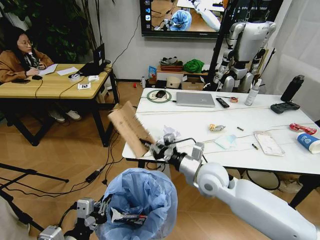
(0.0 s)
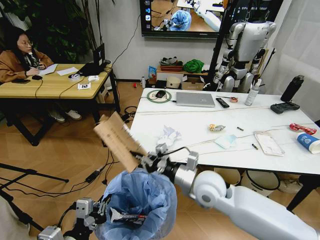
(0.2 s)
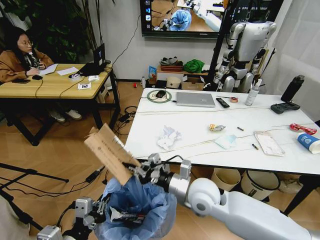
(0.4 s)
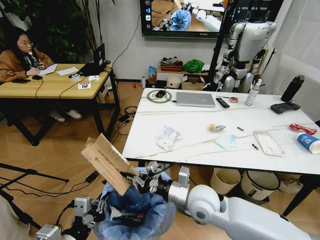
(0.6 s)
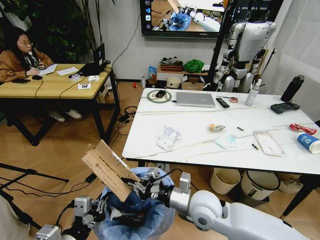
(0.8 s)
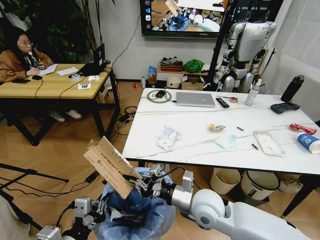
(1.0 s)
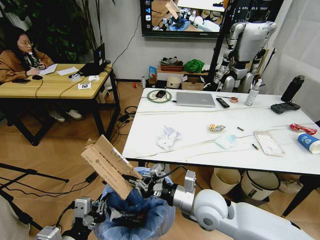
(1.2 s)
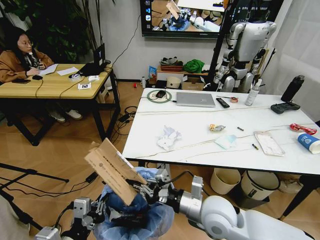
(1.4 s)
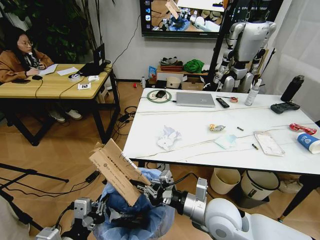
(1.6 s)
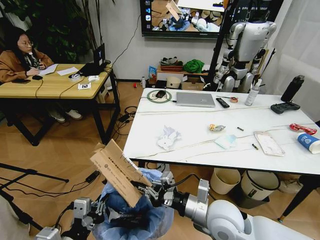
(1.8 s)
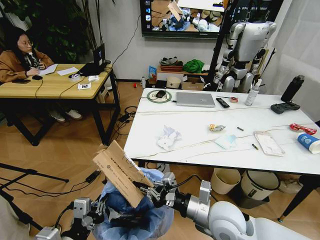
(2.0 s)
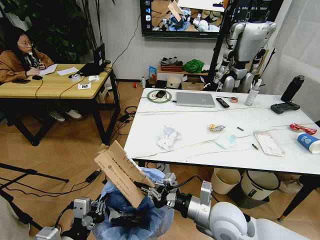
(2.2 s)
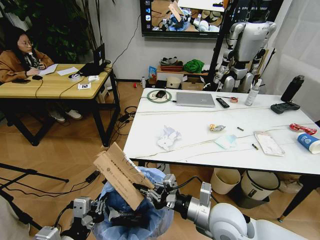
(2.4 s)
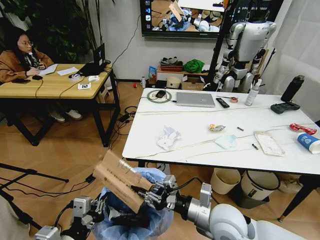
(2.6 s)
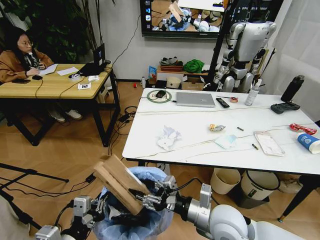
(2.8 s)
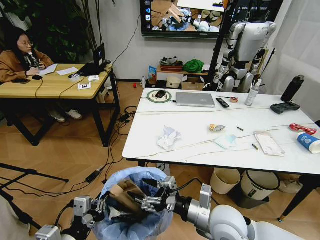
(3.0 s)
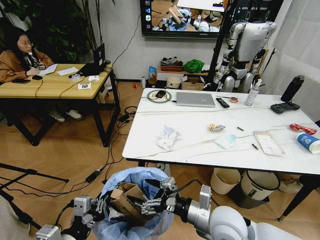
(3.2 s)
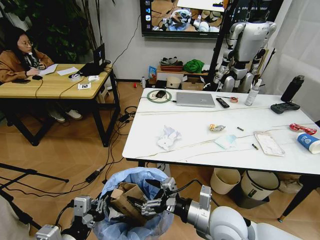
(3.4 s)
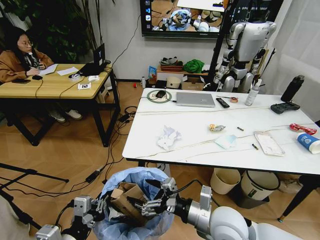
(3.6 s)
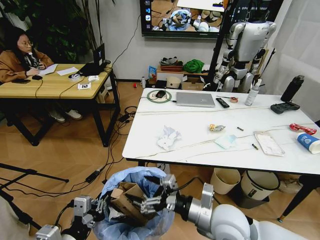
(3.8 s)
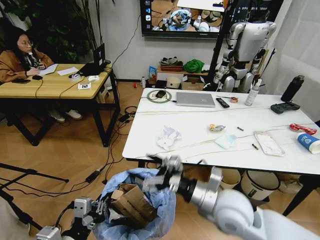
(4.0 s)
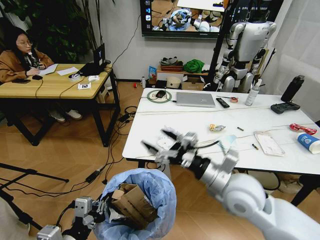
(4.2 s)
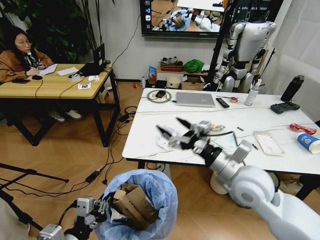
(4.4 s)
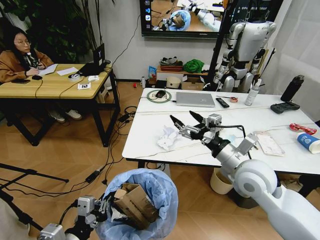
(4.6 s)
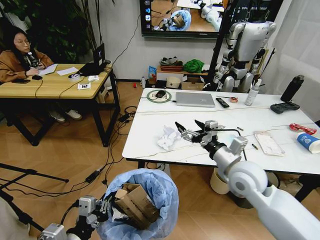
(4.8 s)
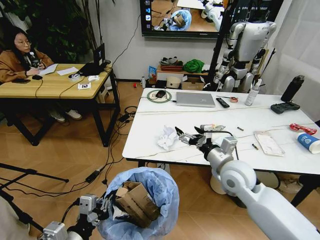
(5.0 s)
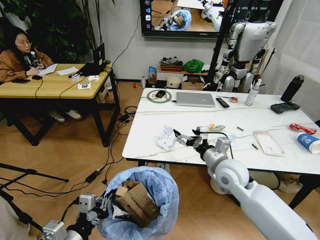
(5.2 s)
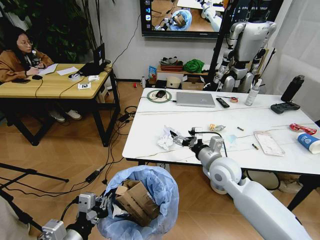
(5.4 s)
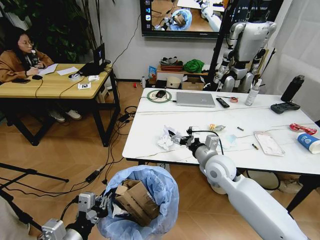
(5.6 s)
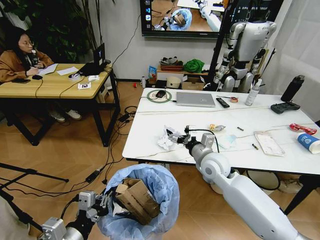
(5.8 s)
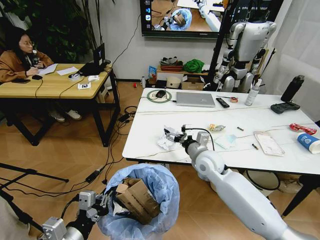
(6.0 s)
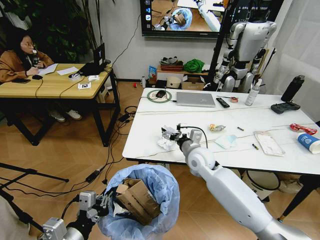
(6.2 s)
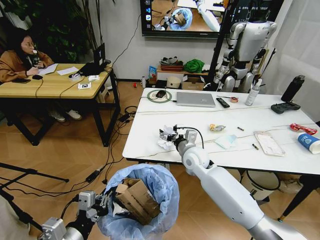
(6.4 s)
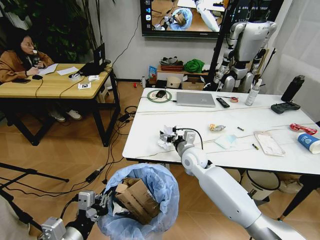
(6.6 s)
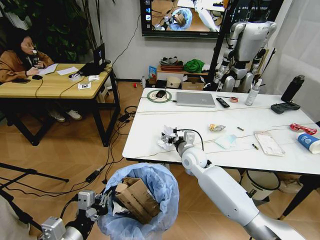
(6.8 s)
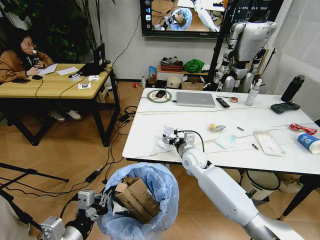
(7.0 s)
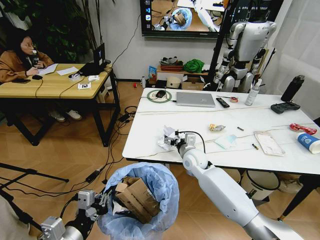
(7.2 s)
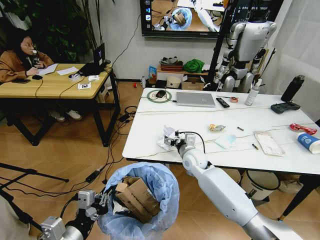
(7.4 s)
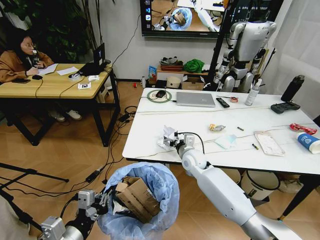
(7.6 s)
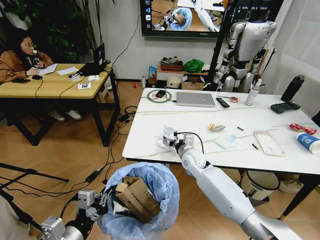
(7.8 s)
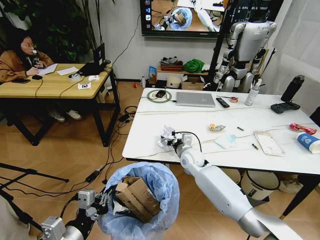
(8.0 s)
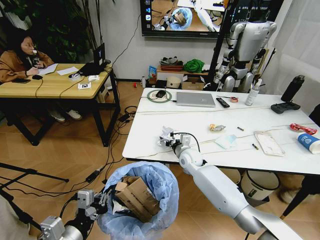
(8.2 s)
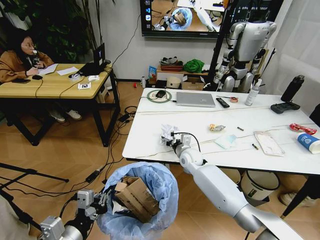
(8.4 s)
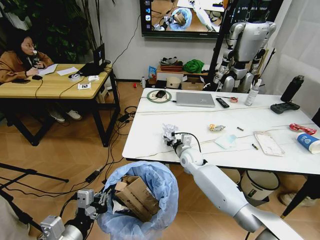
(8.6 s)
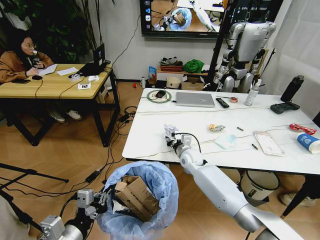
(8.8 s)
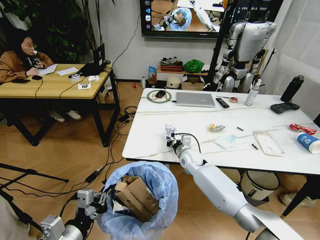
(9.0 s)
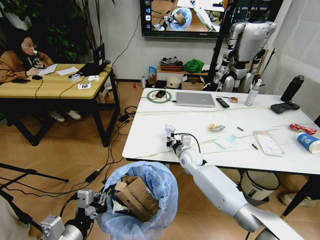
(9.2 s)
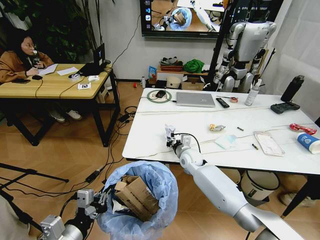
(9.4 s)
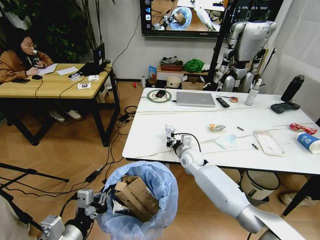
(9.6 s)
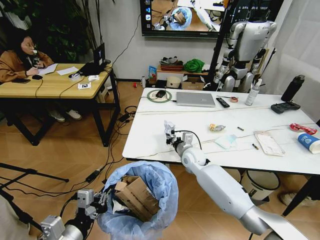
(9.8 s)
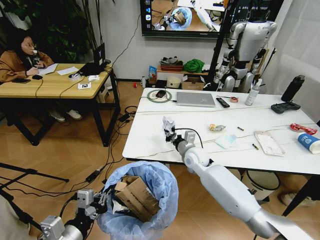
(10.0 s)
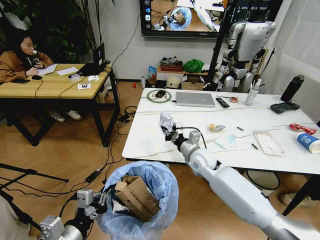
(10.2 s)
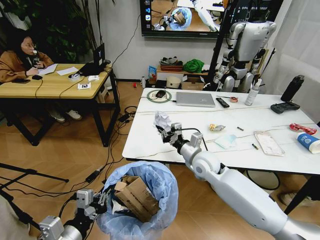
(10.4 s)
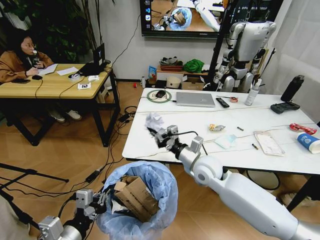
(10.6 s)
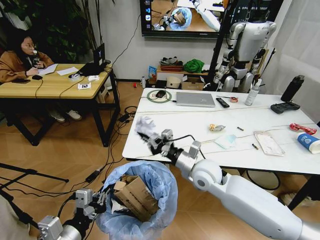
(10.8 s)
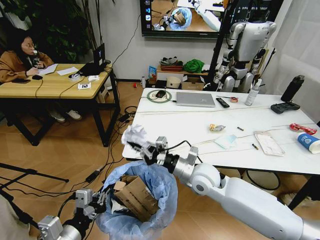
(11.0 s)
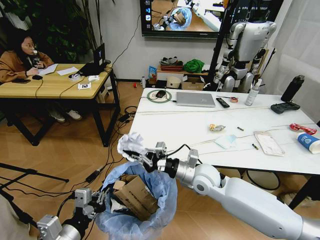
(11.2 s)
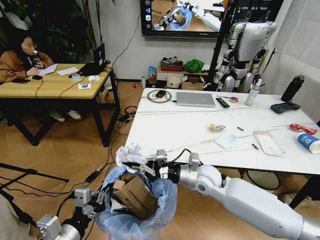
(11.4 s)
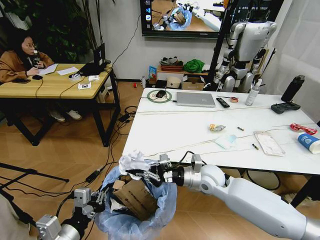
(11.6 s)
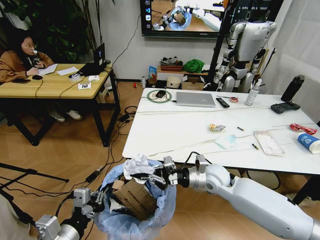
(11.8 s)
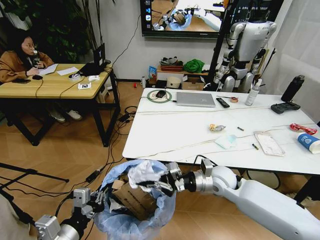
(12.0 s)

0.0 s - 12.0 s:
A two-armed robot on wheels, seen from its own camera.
Task of the whole recording: Pick up the trash bin and place the trash from the table into it.
0.0 s - 1.6 s: The right gripper is displaced backward by approximately 10 cm.
1.6 s - 3.0 s: The right gripper opens up.
3.0 s - 4.4 s: The right gripper heads upward, forward and to the right, covering roughly 15 cm.
4.4 s - 6.0 s: The right gripper travels forward, downward and to the left by about 15 cm.
6.0 s - 7.6 s: The right gripper moves downward, about 5 cm.
7.6 s - 9.0 s: The right gripper closes its fingers.
9.0 s - 10.4 s: The right gripper is displaced upward and backward by roughly 10 cm.
10.4 s - 12.0 s: The right gripper is displaced to the right by about 5 cm.

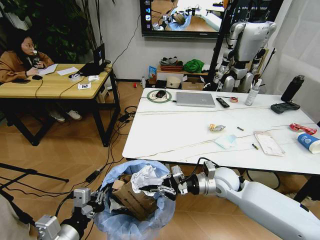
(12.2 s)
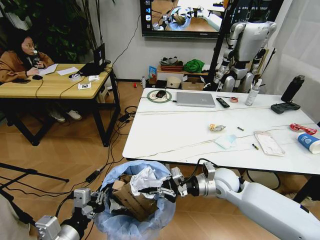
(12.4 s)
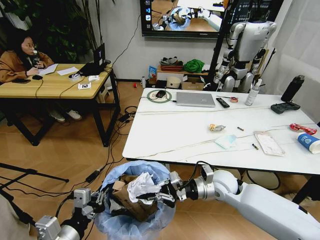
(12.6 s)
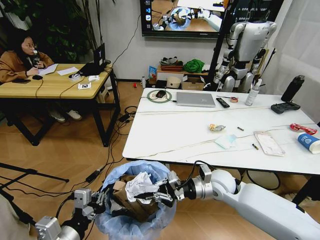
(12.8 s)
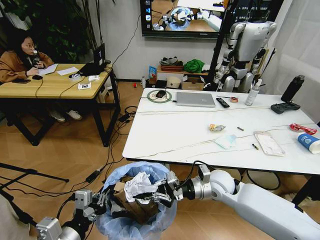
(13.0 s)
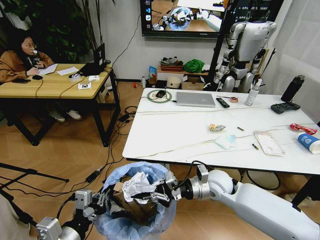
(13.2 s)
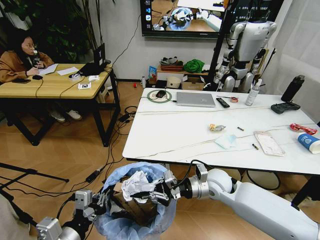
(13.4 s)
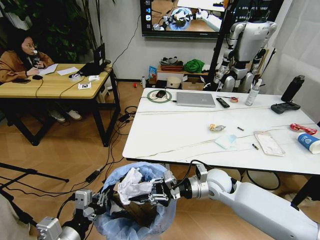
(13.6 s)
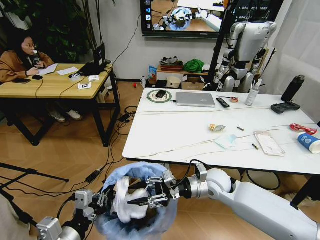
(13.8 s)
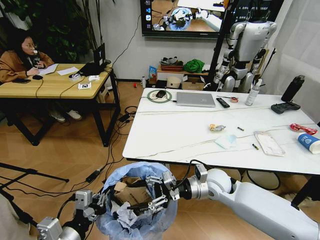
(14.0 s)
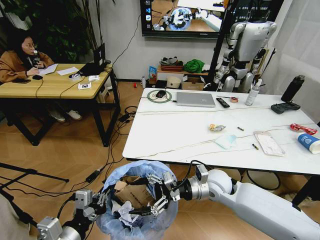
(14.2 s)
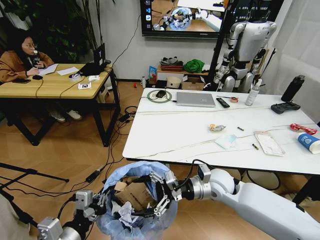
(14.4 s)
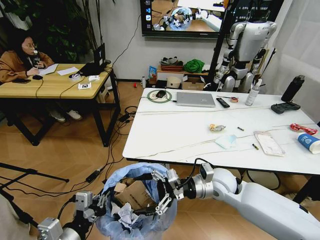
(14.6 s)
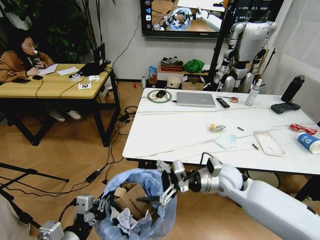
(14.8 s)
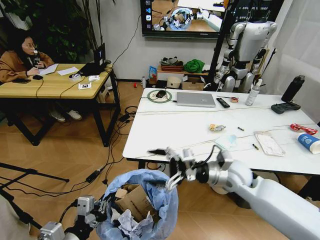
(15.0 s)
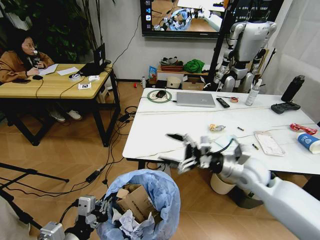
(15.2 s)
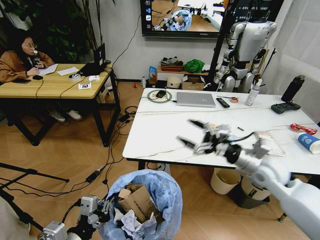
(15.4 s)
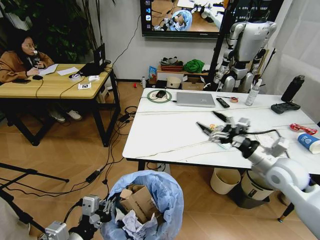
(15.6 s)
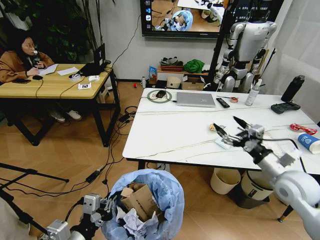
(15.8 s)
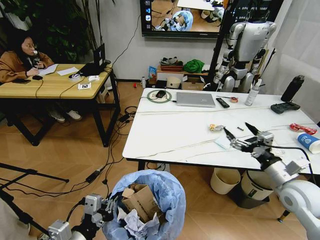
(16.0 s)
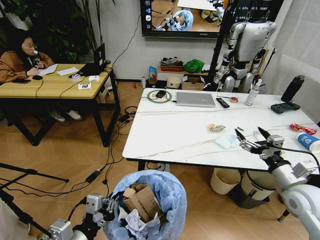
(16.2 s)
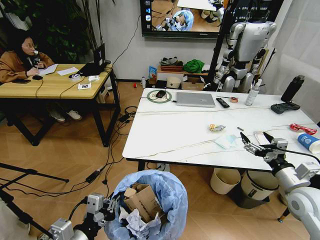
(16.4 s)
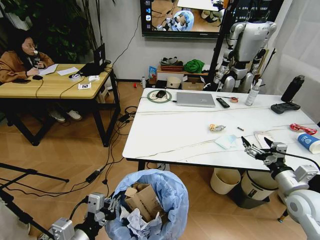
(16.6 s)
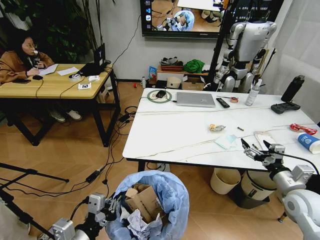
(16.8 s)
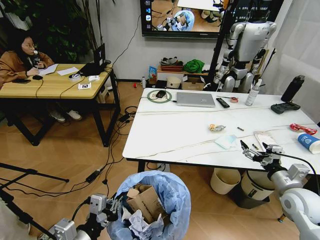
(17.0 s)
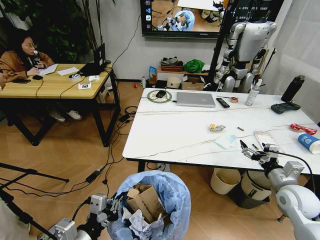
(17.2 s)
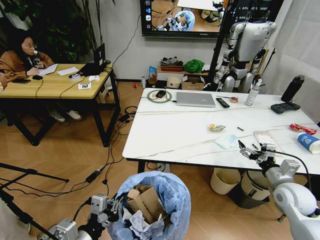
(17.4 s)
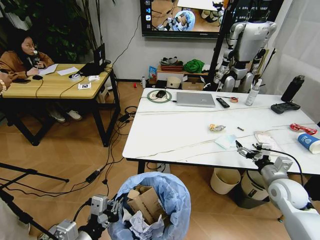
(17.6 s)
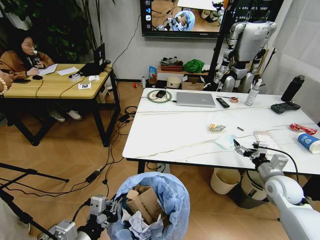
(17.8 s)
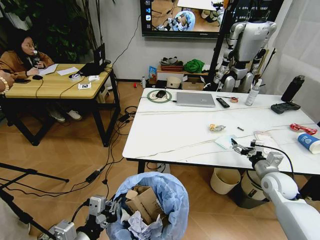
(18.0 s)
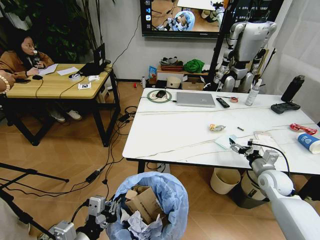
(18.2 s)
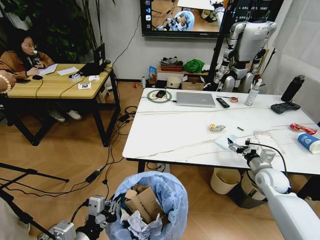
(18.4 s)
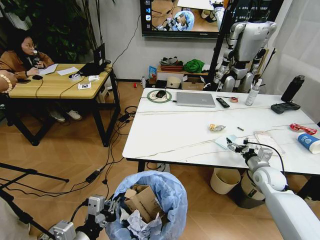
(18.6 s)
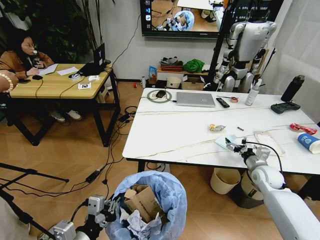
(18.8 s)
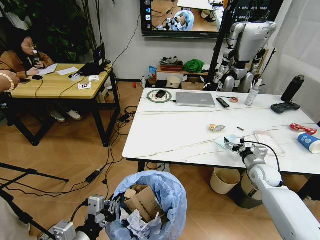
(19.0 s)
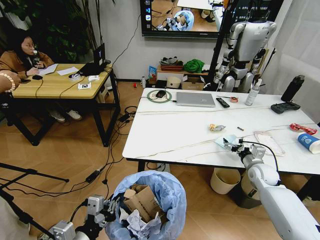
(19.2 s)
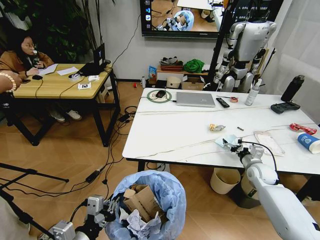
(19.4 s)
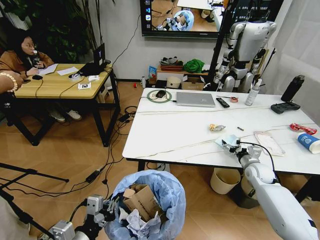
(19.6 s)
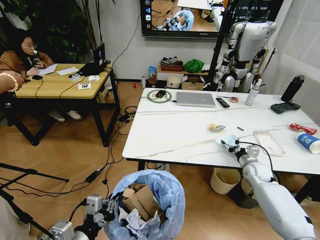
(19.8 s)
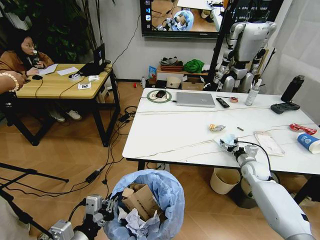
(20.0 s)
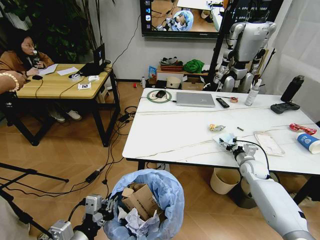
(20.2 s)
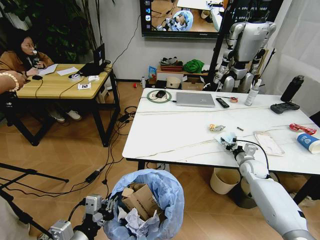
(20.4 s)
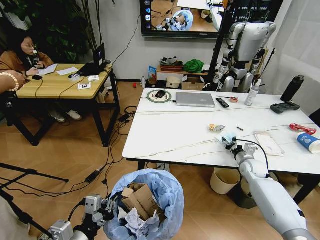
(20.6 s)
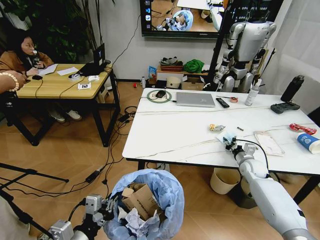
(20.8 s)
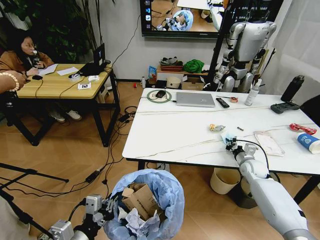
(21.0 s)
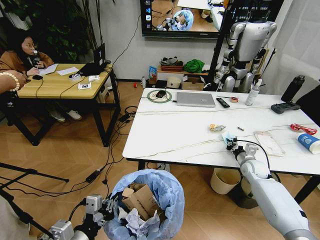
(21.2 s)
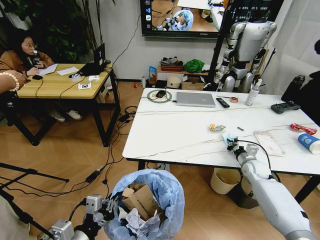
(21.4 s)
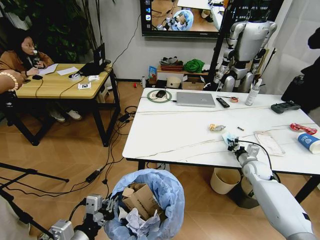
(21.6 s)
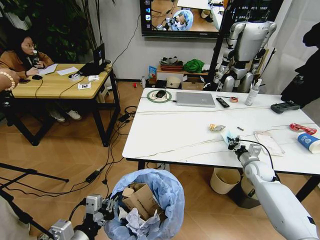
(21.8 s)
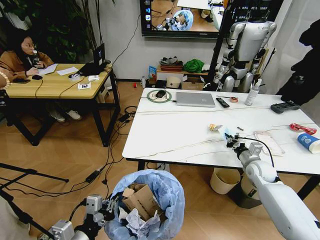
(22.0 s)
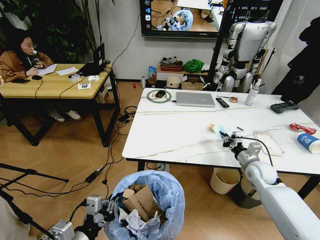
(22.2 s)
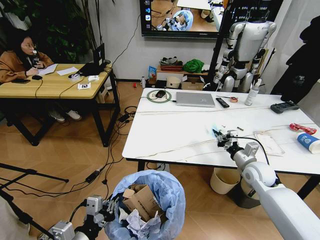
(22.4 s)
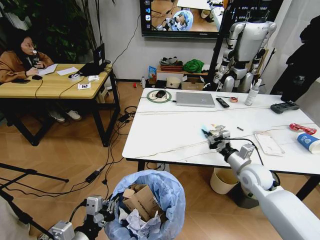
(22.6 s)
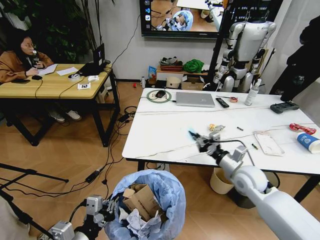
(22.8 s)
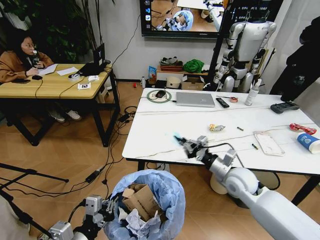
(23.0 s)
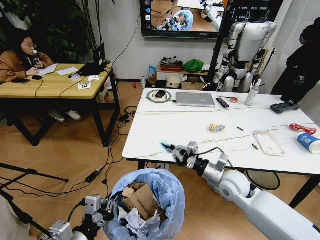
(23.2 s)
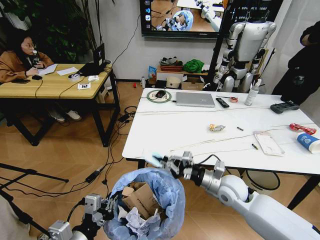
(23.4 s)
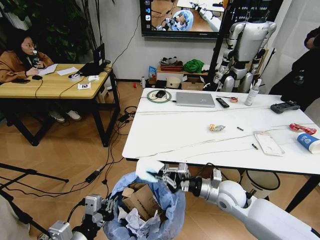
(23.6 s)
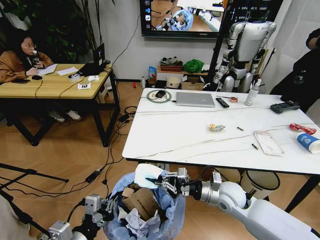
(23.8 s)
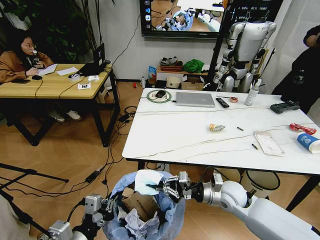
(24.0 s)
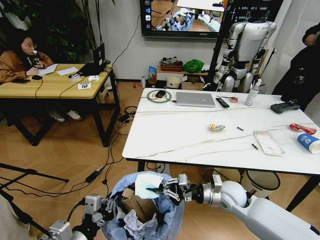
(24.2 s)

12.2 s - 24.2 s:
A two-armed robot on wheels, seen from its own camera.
Task of the whole recording: Pick up the trash bin and place the trash from the table into it.
12.2 s - 13.8 s: The right gripper opens up.
13.8 s - 15.2 s: The right gripper travels to the right and upward by about 10 cm, and opens up.
15.2 s - 16.6 s: The right gripper travels to the right and backward by some 15 cm.
16.6 s - 18.2 s: The right gripper is displaced forward and downward by about 10 cm.
18.2 s - 19.8 s: The right gripper shifts approximately 10 cm forward and downward.
19.8 s - 21.2 s: The right gripper closes its fingers.
21.2 s - 22.6 s: The right gripper shifts roughly 15 cm upward, backward and to the left.
22.6 s - 24.2 s: The right gripper is displaced to the left by roughly 10 cm.
